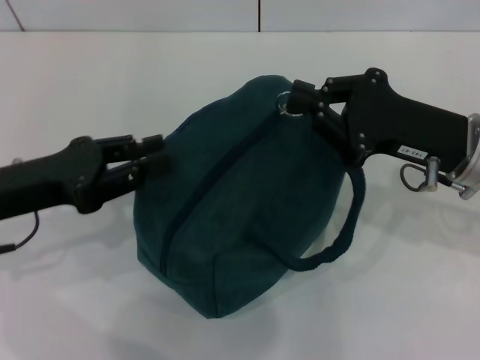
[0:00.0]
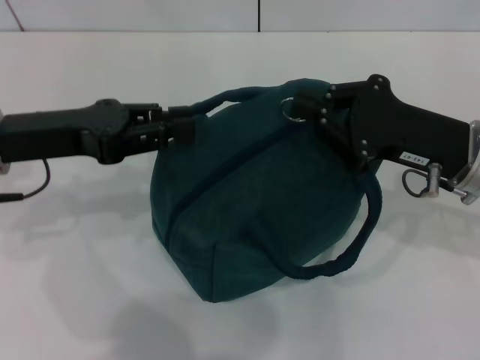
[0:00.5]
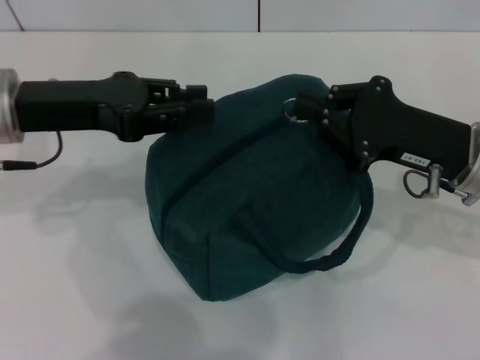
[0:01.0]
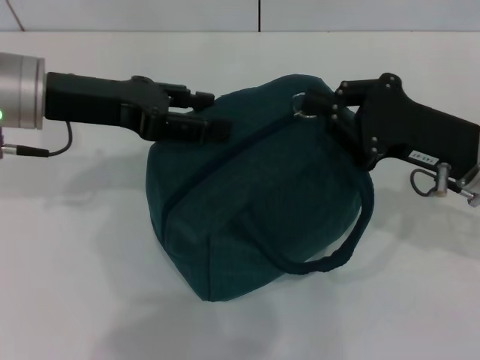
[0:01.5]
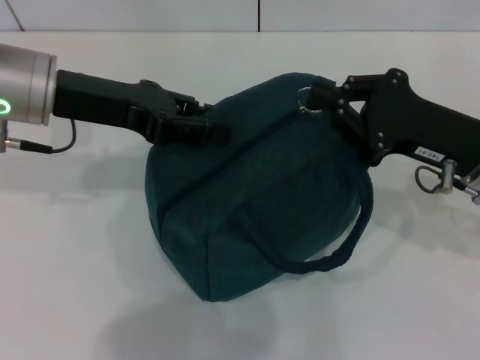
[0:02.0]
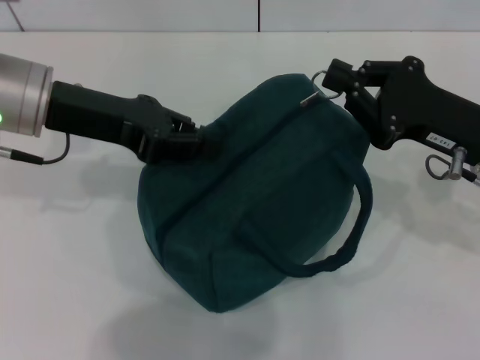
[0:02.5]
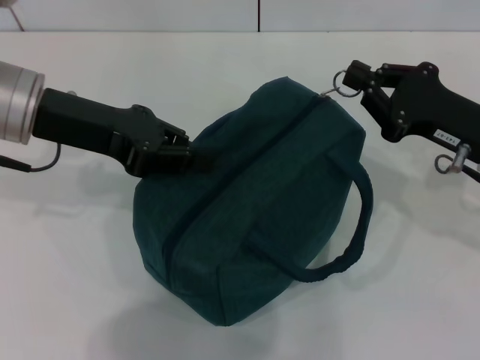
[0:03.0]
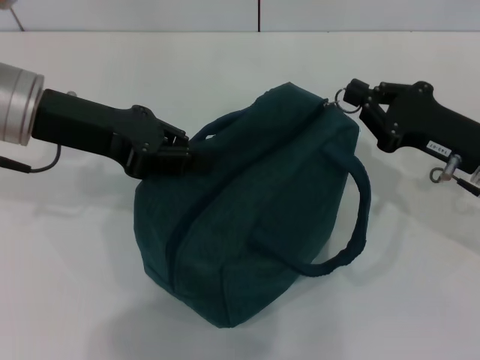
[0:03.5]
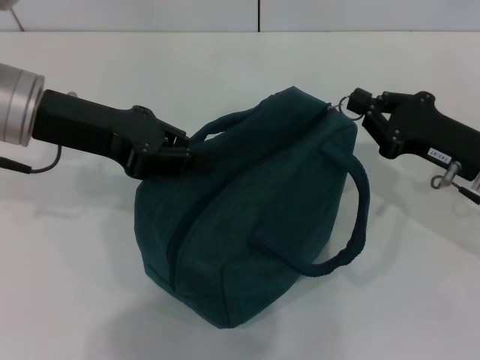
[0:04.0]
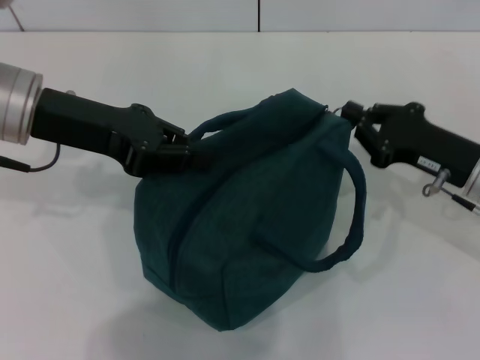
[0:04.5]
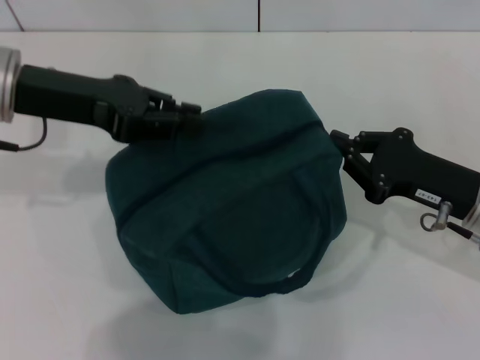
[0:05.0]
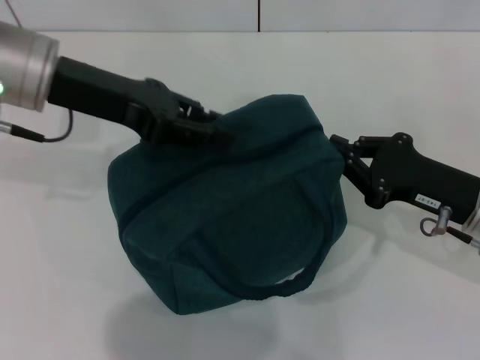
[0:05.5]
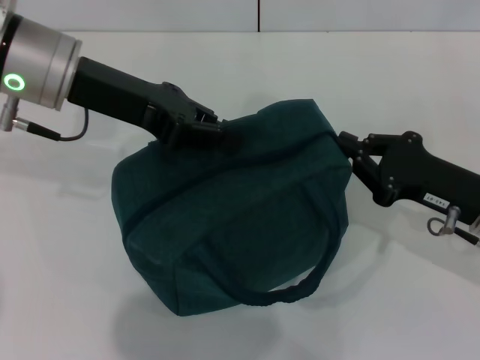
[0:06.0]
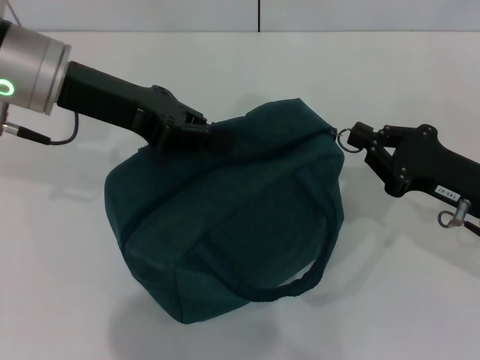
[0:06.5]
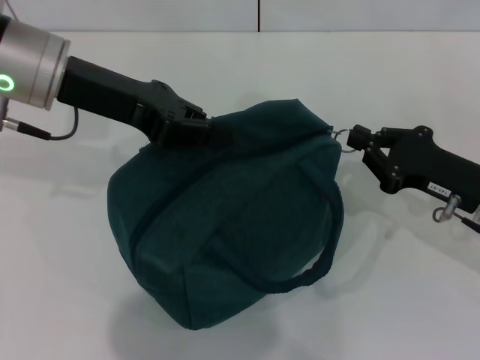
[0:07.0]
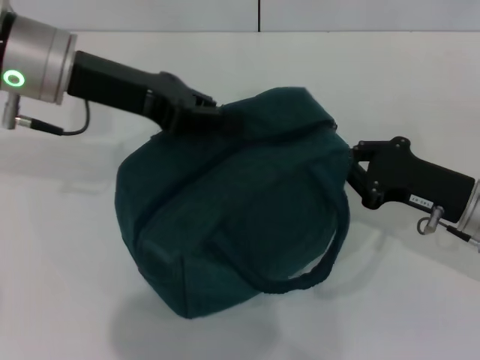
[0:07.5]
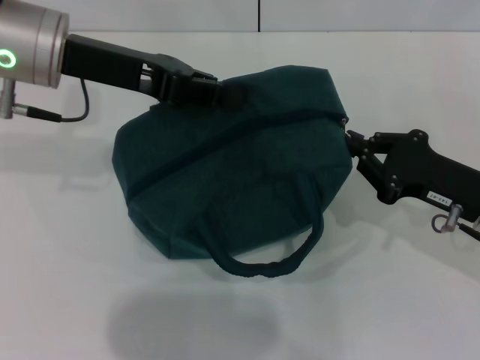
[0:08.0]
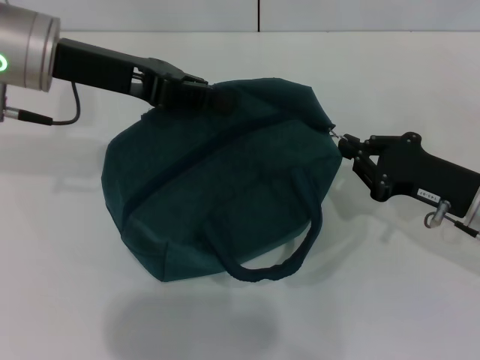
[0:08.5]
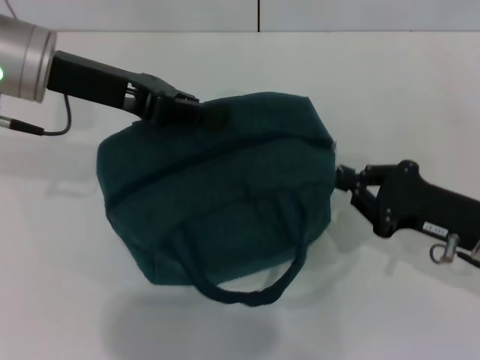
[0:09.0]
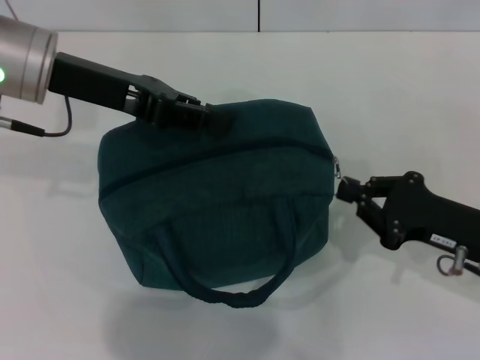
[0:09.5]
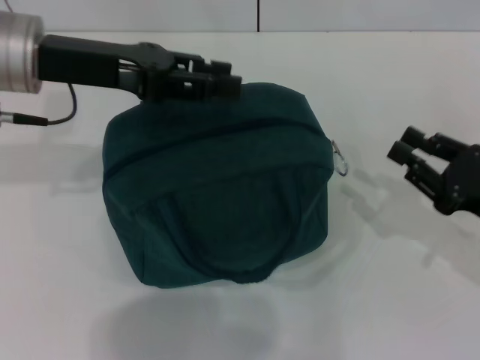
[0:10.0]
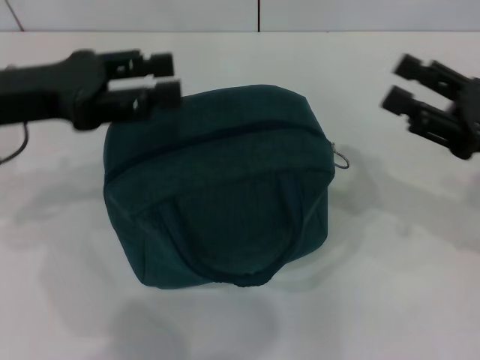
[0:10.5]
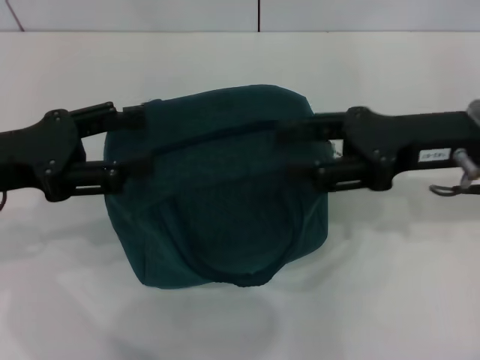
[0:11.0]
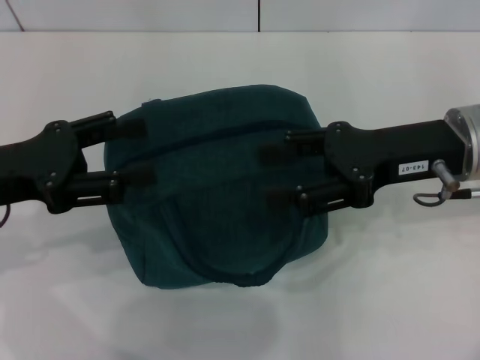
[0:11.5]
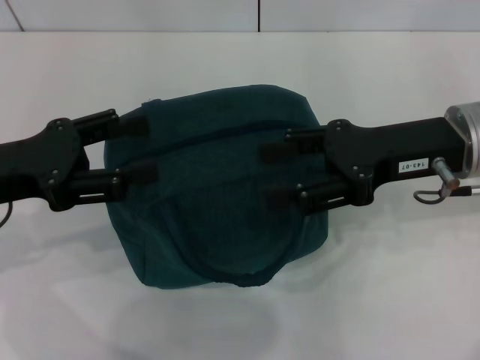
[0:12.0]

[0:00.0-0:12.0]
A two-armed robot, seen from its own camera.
Step, 0:00.0 to 0:09.5: Zip up the lunch bag with your right hand.
0:00.0 to 0:02.0: The left gripper goes about 15 cm forward, upward and to the right.
0:02.0 to 0:04.0: The left gripper closes up. The right gripper shifts by some 5 cm.
0:08.0 to 0:10.0: The left gripper opens its fingers. The right gripper moves about 5 cm.
0:10.0 to 0:12.0: The left gripper goes roughly 15 cm backward, to the left and downward, and opens up, while the right gripper goes roughly 15 cm upward, to the left and forward, and opens up.

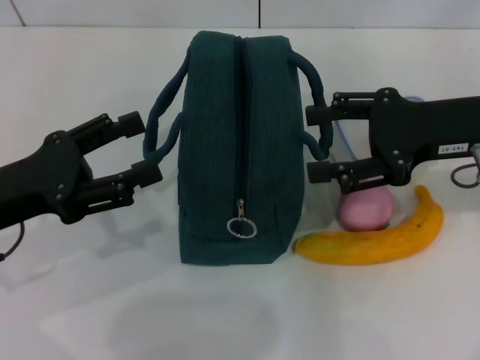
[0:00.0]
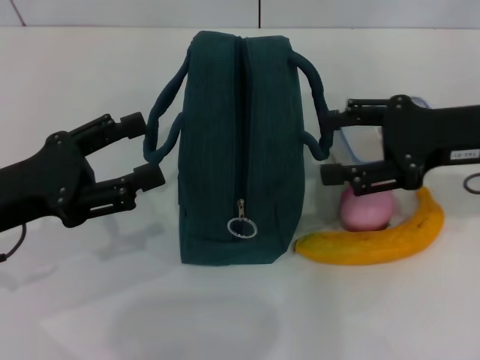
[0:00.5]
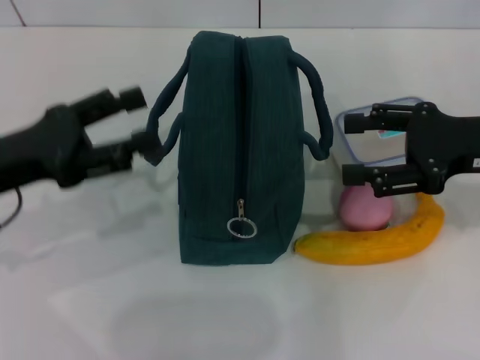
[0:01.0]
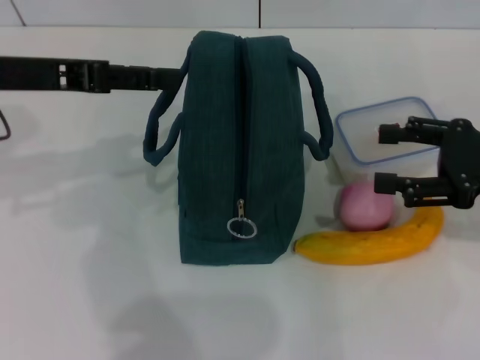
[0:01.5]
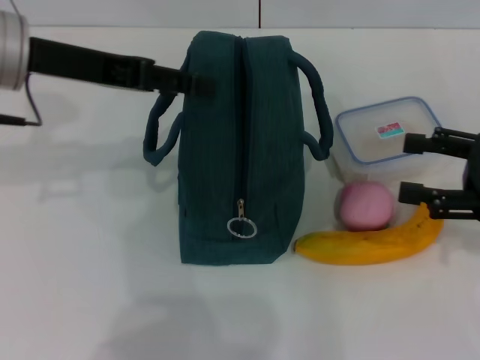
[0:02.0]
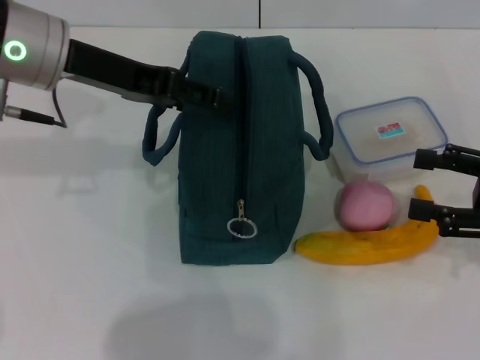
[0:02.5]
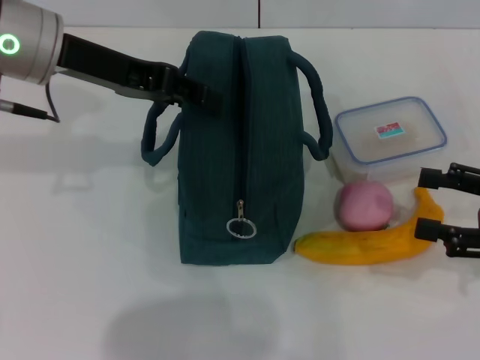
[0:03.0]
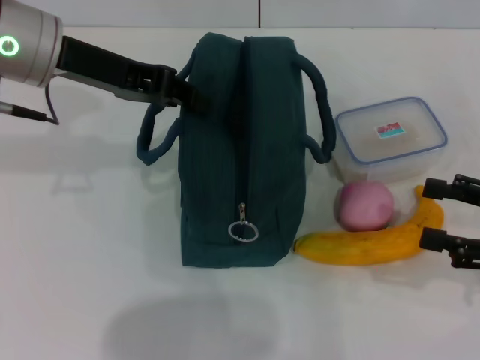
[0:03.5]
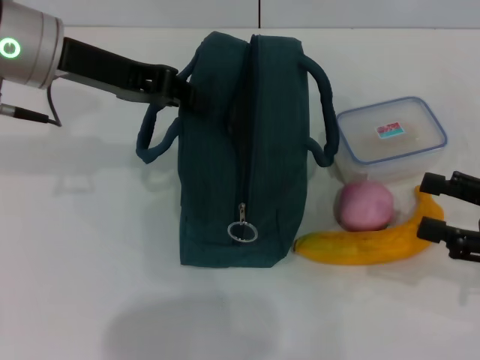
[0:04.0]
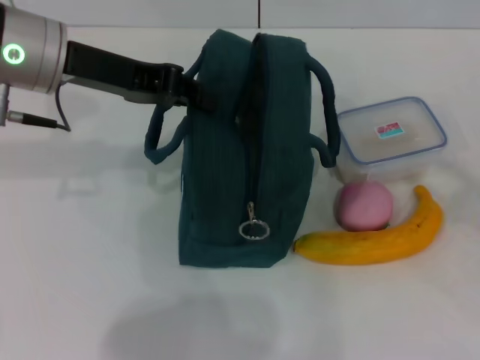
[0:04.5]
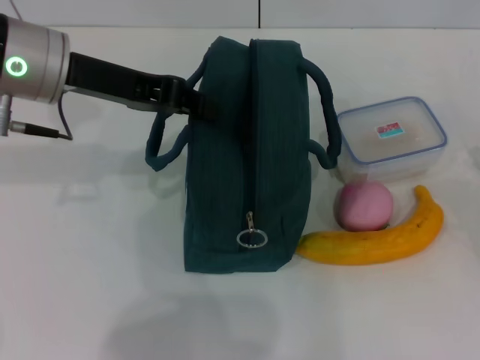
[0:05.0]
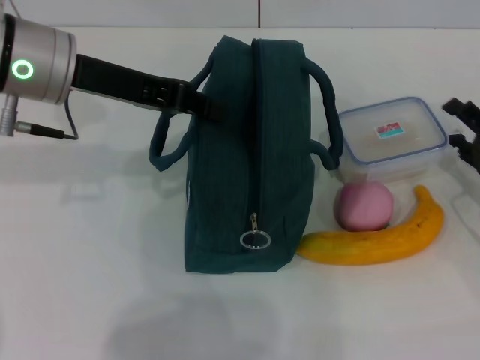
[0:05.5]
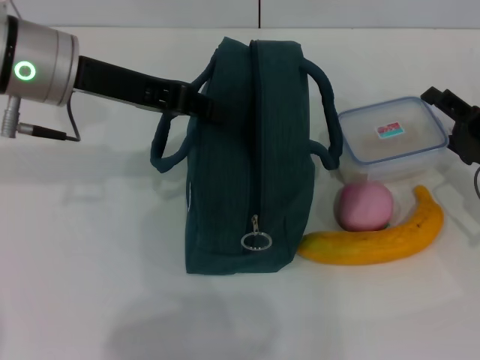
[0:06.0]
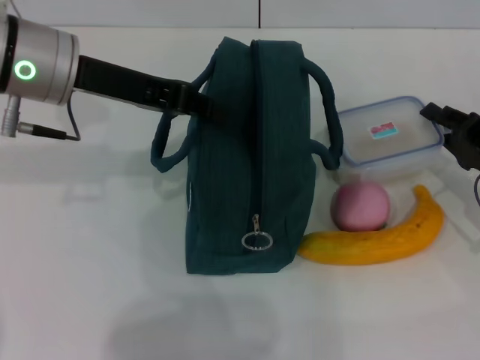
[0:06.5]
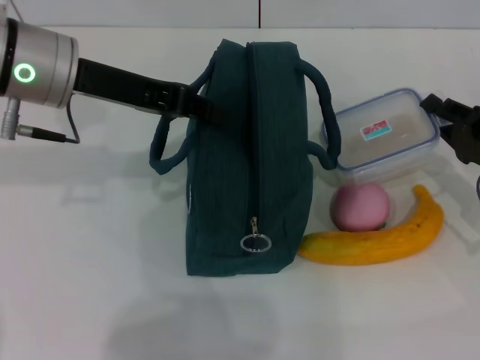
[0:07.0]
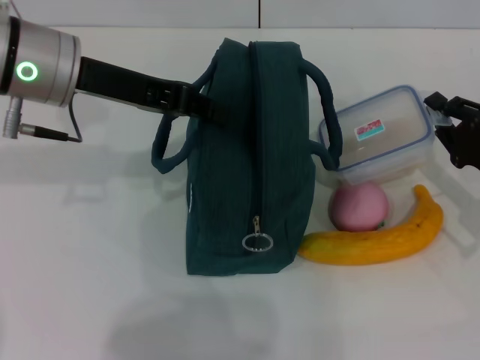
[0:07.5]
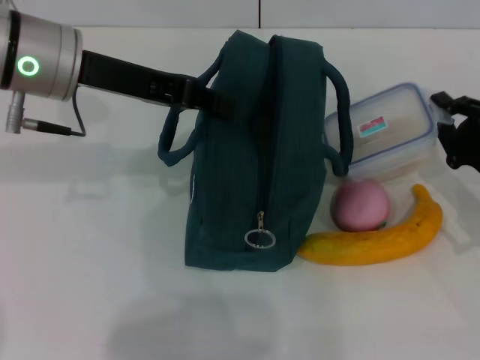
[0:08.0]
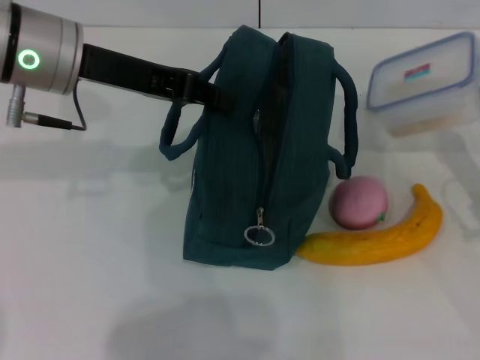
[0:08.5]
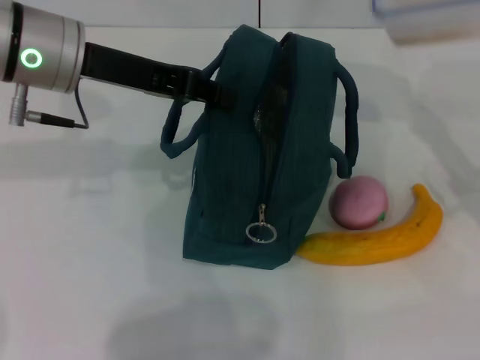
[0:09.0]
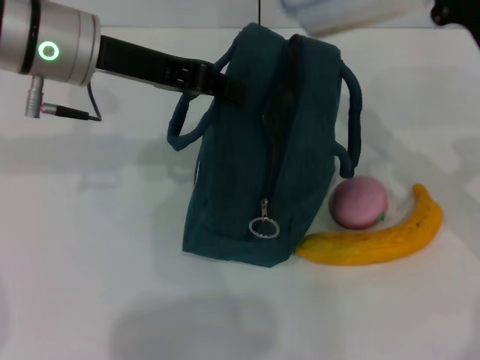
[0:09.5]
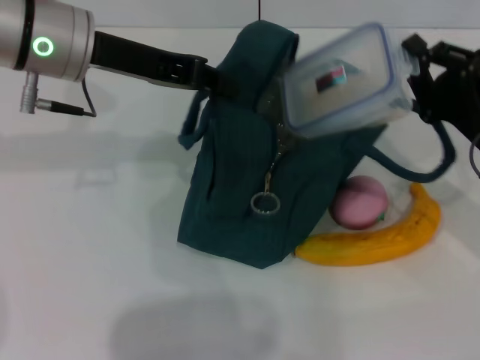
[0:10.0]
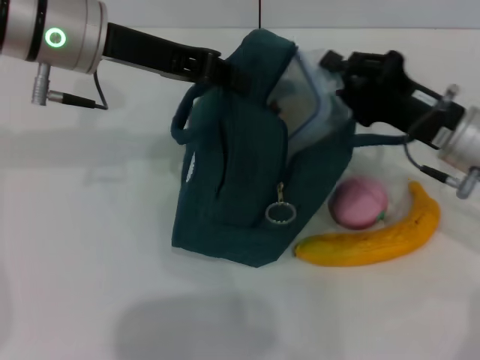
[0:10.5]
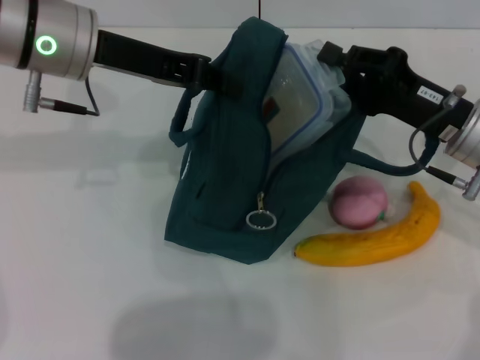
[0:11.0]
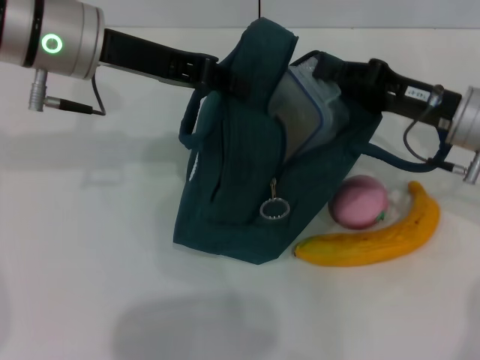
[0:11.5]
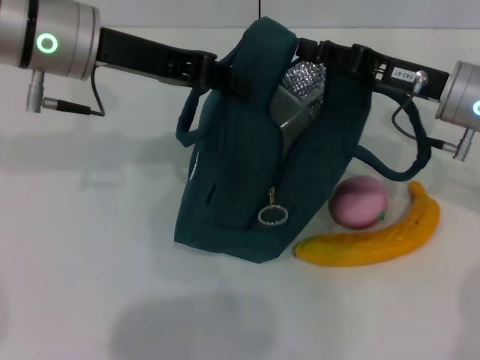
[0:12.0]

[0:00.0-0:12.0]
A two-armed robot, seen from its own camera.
Step, 0:00.0 to 0:03.5: Hold the lunch bag with your left hand.
Step, 0:04.0 to 0:07.0: Pick up the lunch box with your right hand.
Step, 0:07.5 to 0:11.5: Place the lunch box into the lunch bag with your right hand.
0:00.0 to 0:02.0: The left gripper is displaced forward, upward and to the right by about 15 cm; the right gripper travels to the right and backward by roughly 10 cm.
0:02.0 to 0:04.0: The left gripper closes, while the right gripper moves some 5 cm.
0:04.0 to 0:06.0: The right gripper shifts roughly 10 cm forward and downward.
0:06.0 to 0:08.0: The right gripper closes its fingers.
0:10.0 to 0:12.0: The right gripper moves forward, about 5 cm.

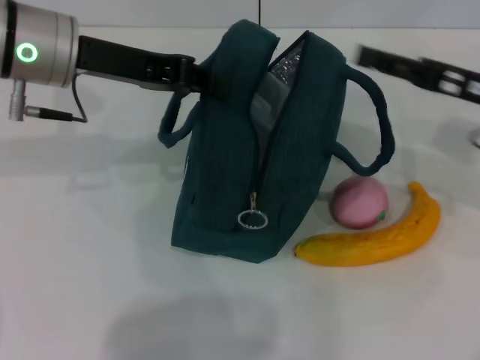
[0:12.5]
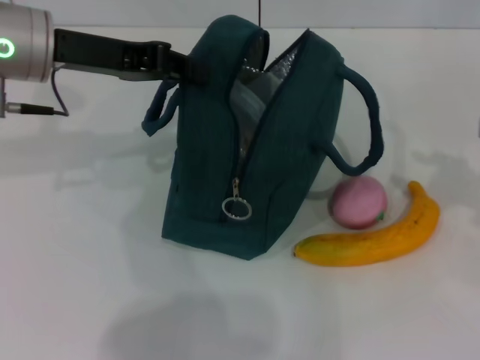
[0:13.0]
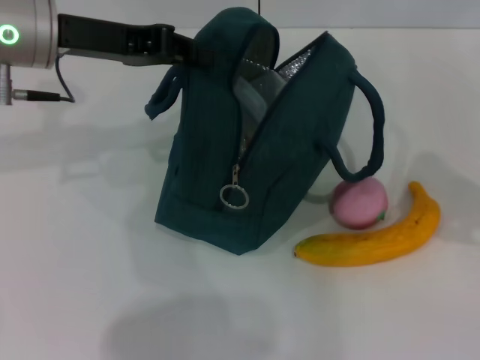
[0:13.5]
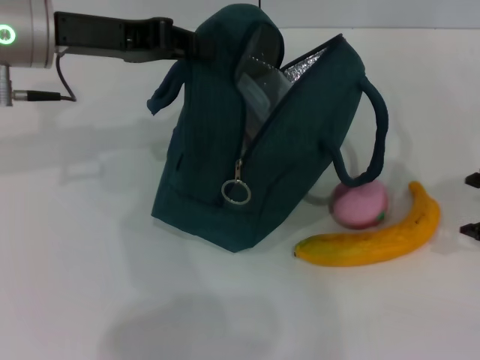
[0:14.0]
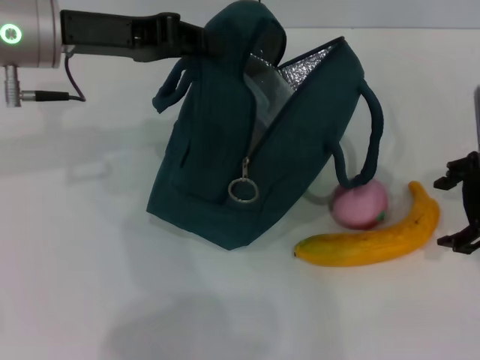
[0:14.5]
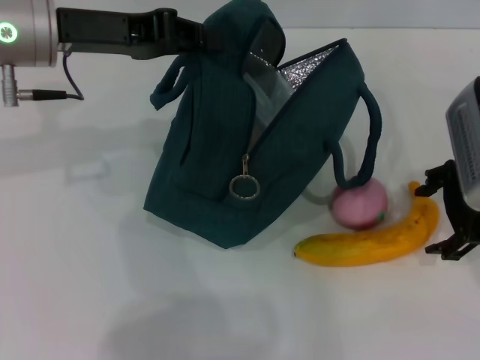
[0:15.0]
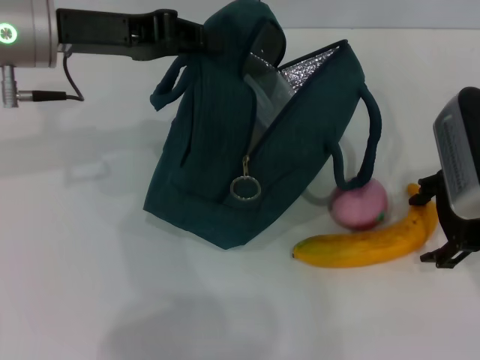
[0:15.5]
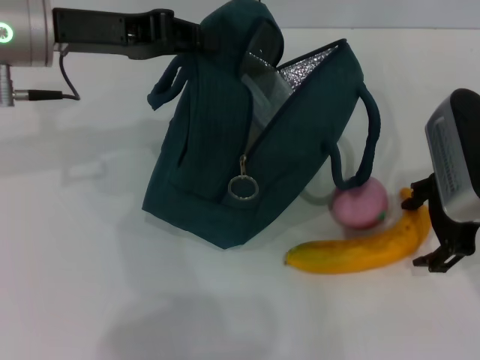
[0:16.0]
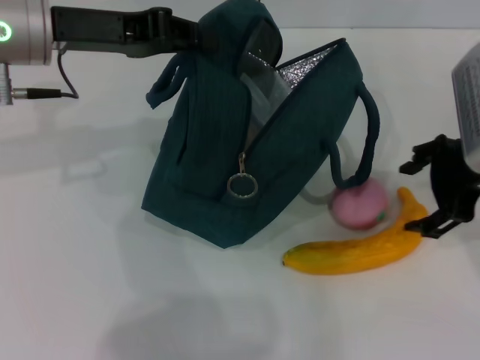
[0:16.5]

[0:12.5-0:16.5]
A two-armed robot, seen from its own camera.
0:12.5 to 0:14.5: The right gripper goes to the right and returns, approximately 10 cm each way.
0:14.5 to 0:16.5: The grippers make only small movements.
